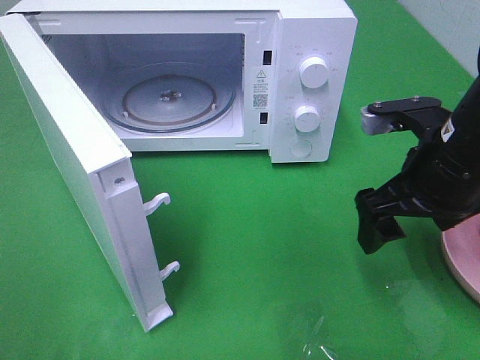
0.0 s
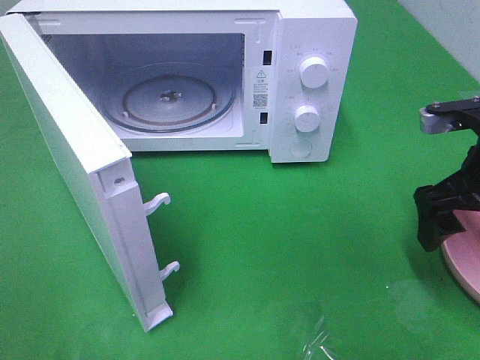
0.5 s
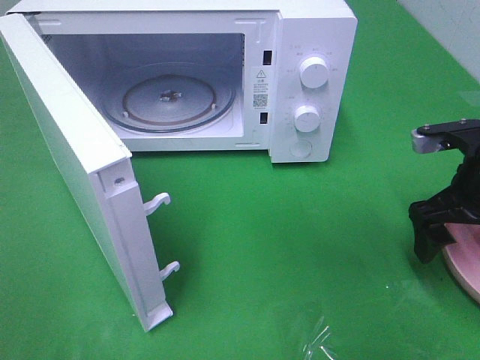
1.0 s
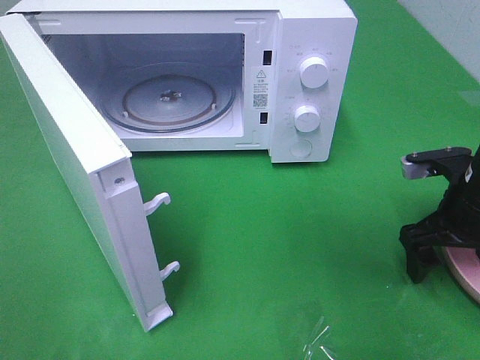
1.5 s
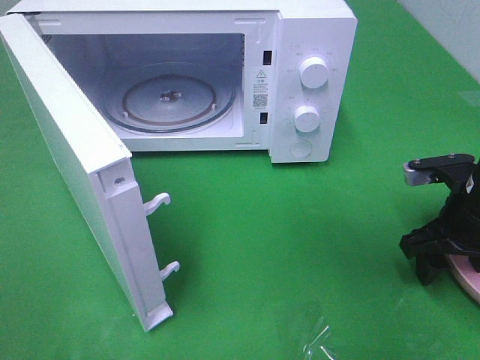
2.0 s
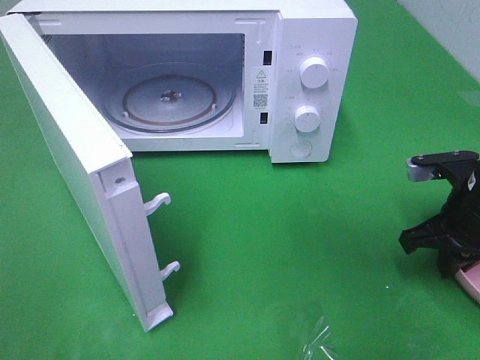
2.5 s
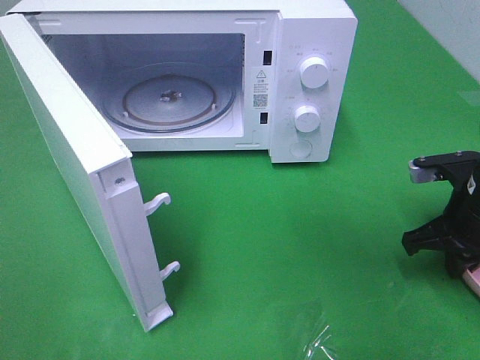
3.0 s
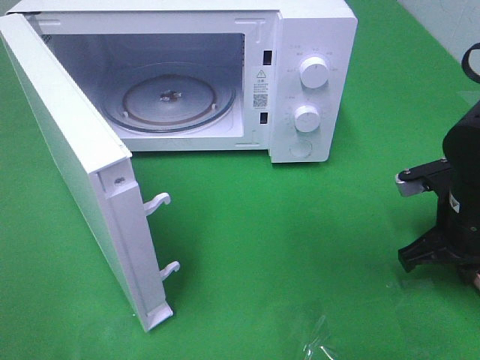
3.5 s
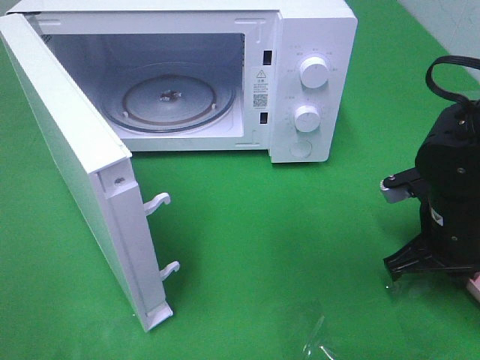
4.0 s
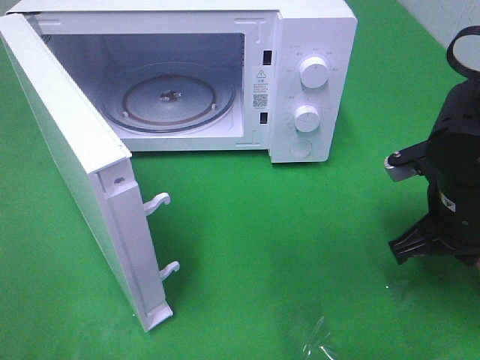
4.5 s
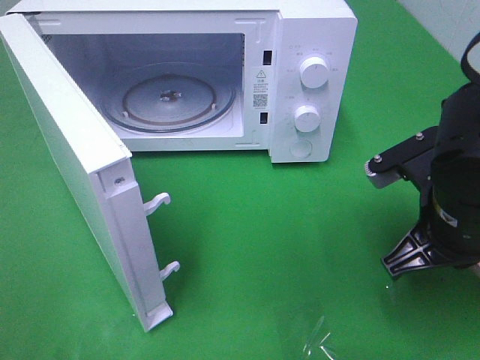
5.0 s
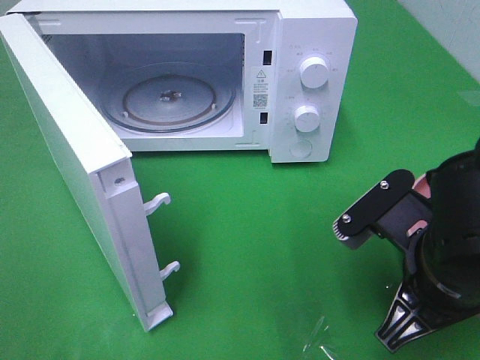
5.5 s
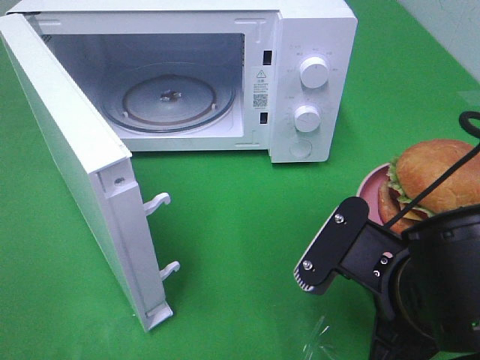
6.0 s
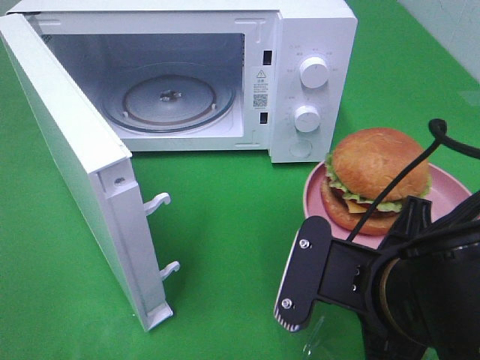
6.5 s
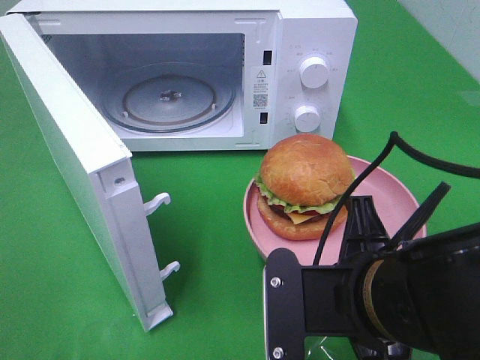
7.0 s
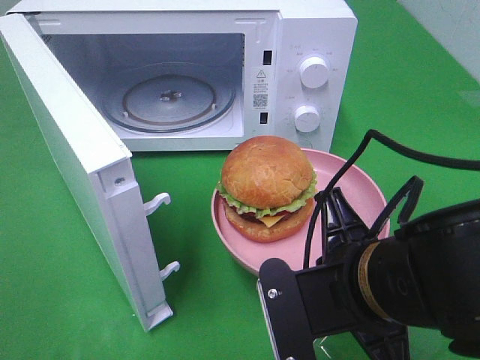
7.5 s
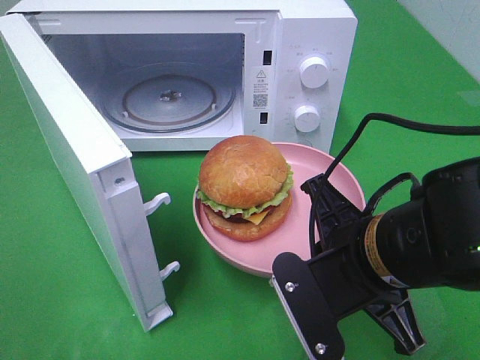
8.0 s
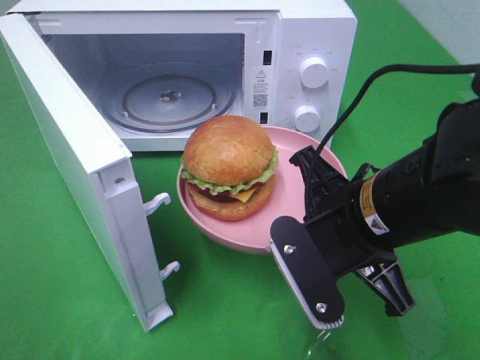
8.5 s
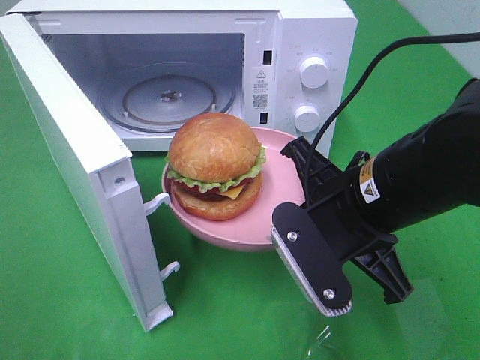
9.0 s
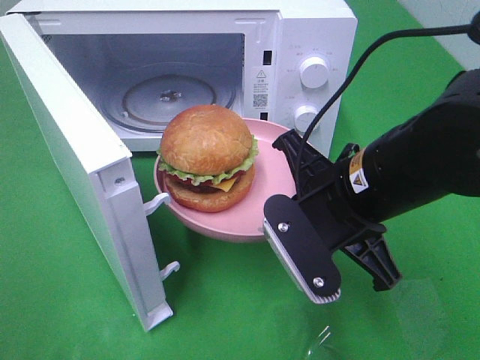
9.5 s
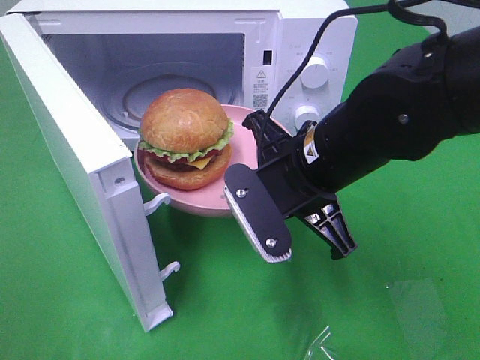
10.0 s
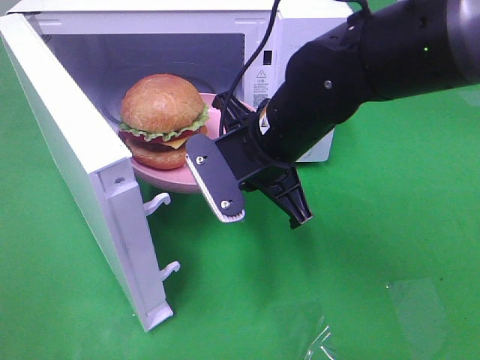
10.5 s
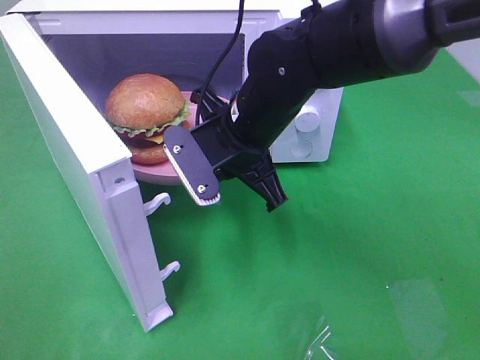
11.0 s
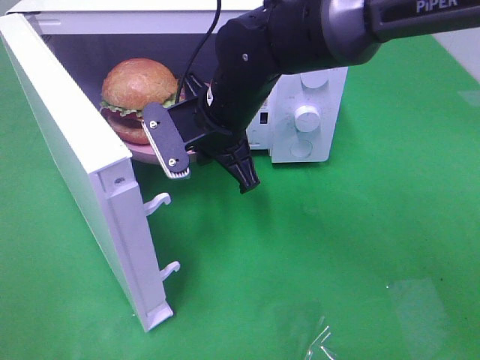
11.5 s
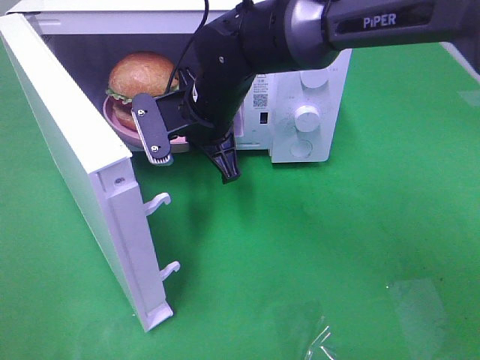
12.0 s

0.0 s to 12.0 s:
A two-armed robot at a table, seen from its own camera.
Task of the whole recording: Heat the burger.
Step, 0.0 to 2.5 s: Right hand: grab the plate with the hamburger.
0.0 to 2.0 s: The right gripper shifts about 10 cm downward and to the right.
2.0 to 4.0 s: The right gripper shifts by approximately 5 cm, and closes up.
4.0 to 6.0 s: The right gripper heads backward and to the left, covering roughly 15 cm.
8.0 to 10.0 s: The right gripper moves forward, about 10 cm.
10.0 to 12.0 s: The right gripper goes roughly 15 cm forward and to the left.

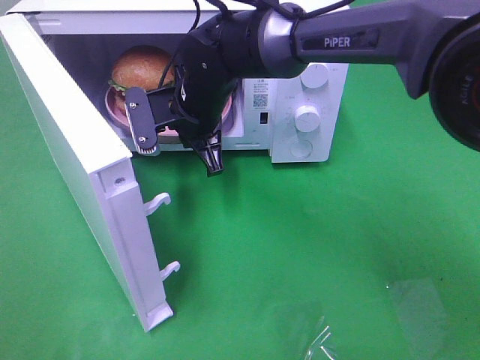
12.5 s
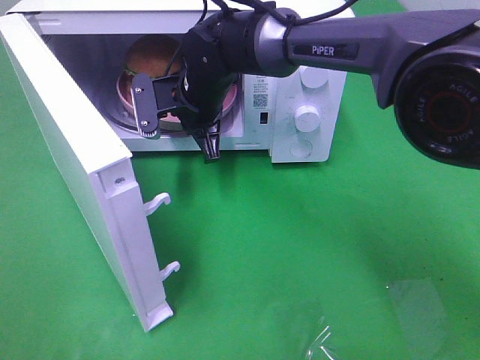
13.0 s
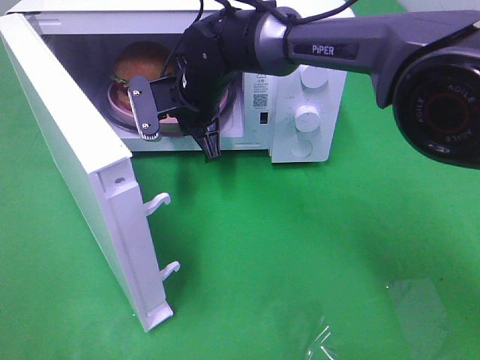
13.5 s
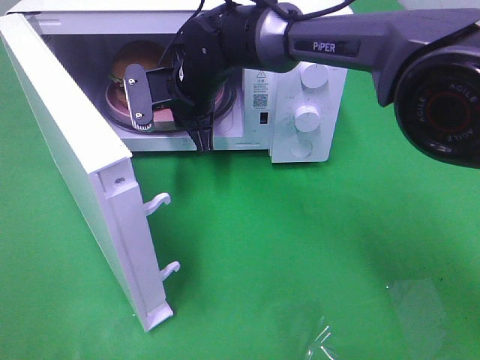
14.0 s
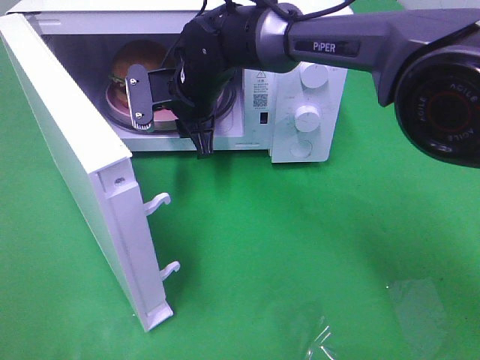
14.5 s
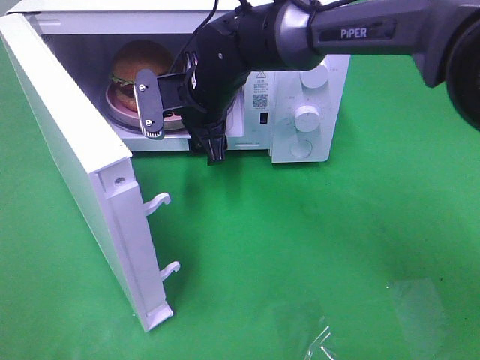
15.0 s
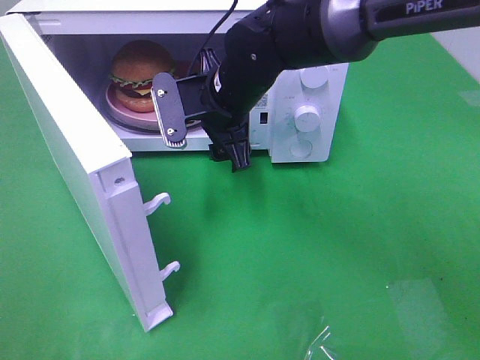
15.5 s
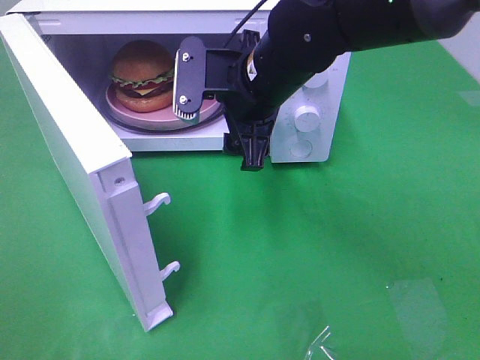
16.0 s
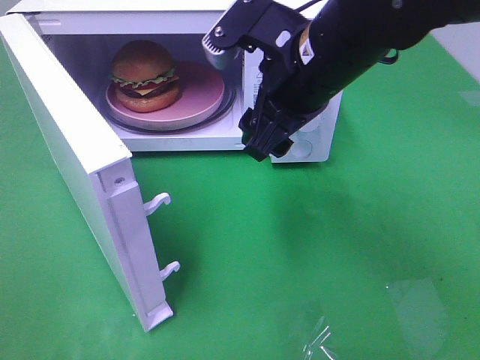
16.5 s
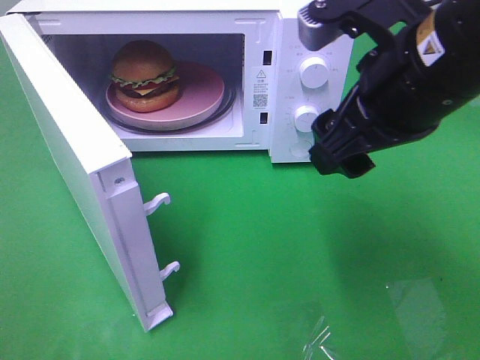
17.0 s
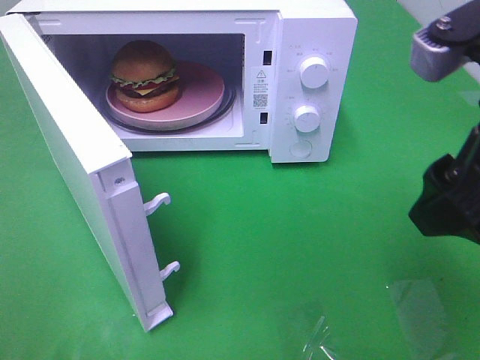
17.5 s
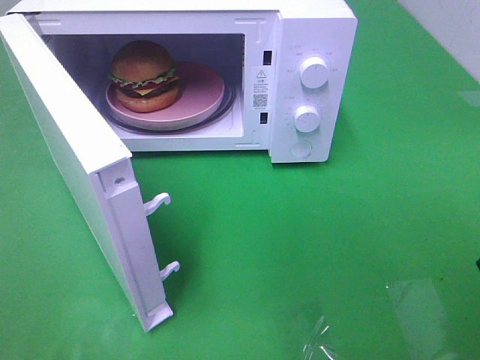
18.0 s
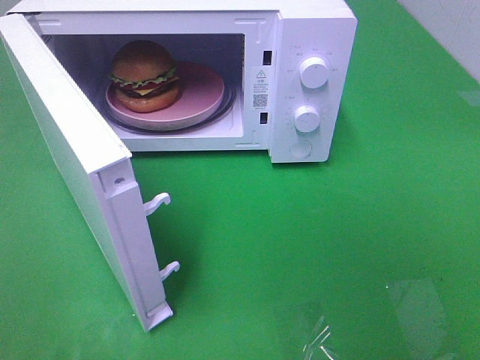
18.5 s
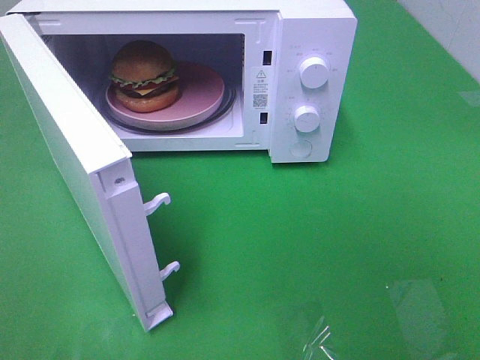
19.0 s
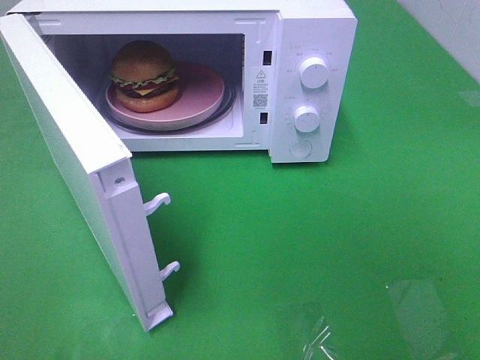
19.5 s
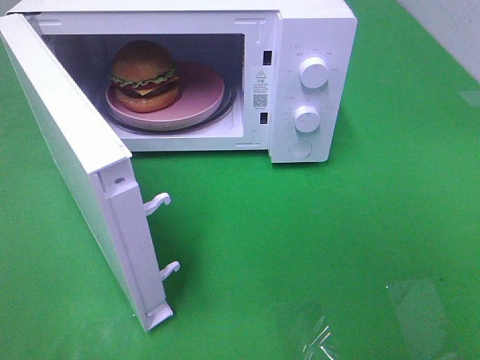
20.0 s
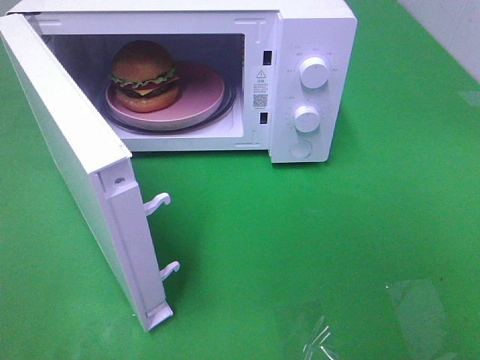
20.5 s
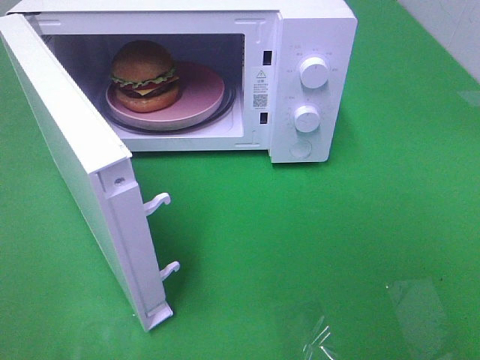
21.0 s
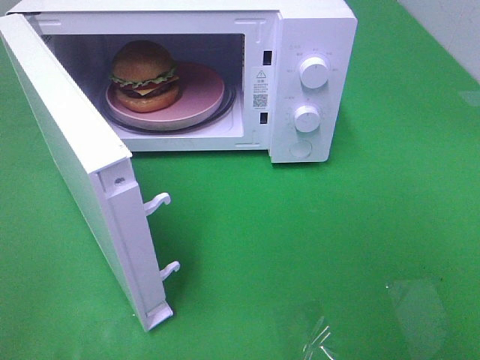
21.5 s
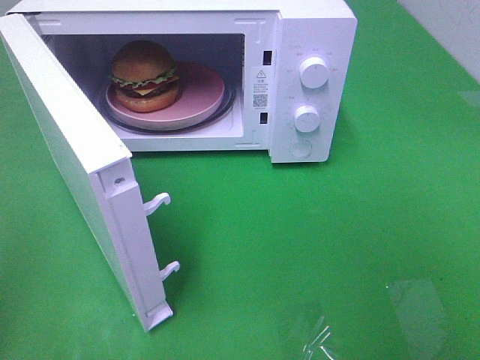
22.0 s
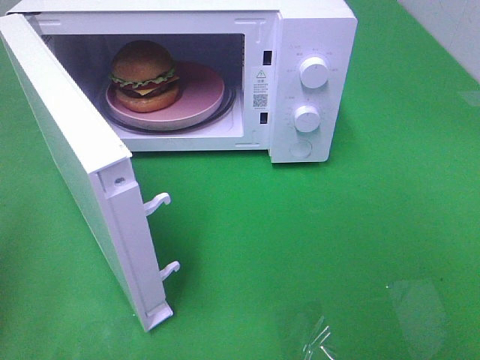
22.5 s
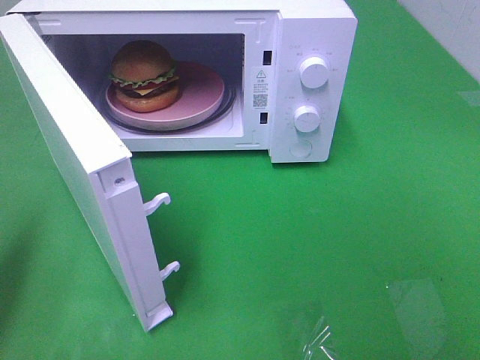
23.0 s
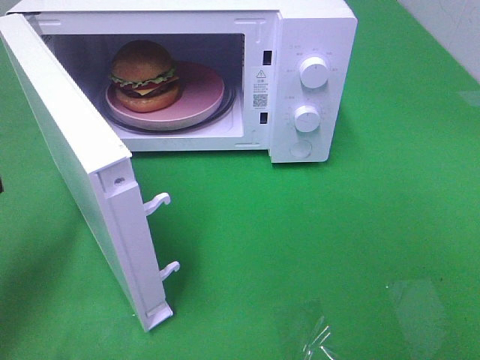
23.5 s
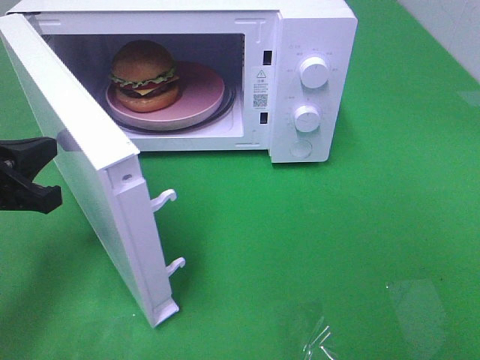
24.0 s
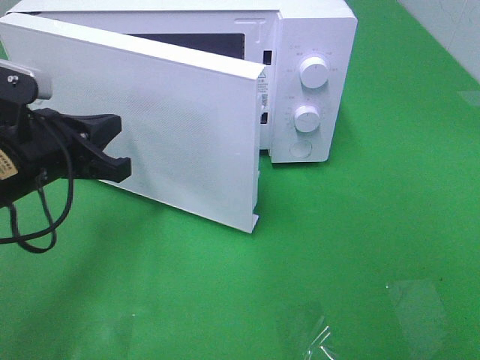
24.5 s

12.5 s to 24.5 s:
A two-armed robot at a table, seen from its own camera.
Task of the whole recording: Heat the burger.
Step, 12.5 to 15.0 s: Right hand: place the plate in the microwave.
12.5 to 14.5 s: The right gripper opens its fingers.
14.5 to 16.5 s: The right gripper shifts about 20 cm backward, to the right and upward, and opens its fingers.
16.5 to 18.5 s: The right gripper heads backward and to the right, covering approximately 30 cm.
22.5 to 24.5 s: The left gripper travels forward, to the right and downward by roughly 20 cm.

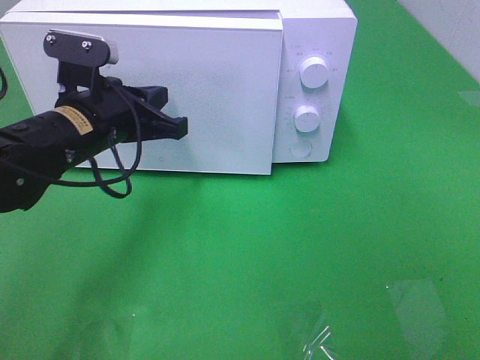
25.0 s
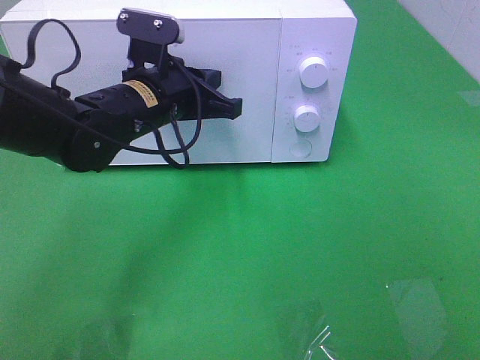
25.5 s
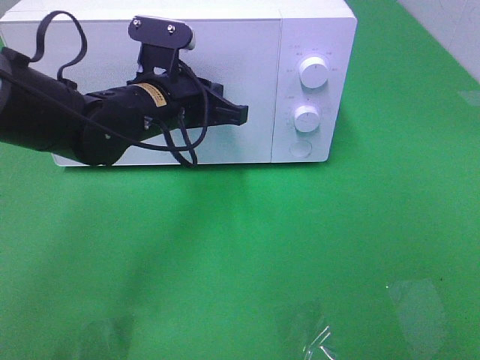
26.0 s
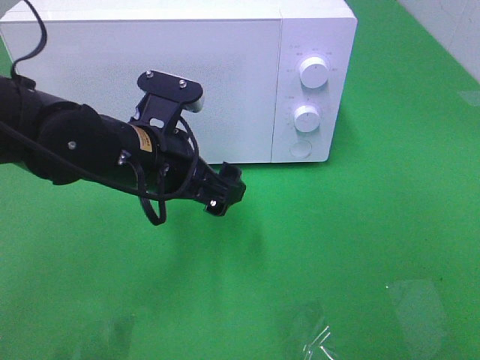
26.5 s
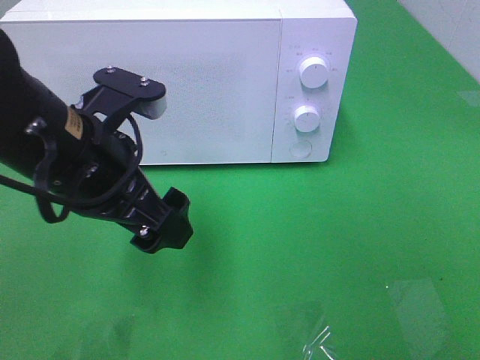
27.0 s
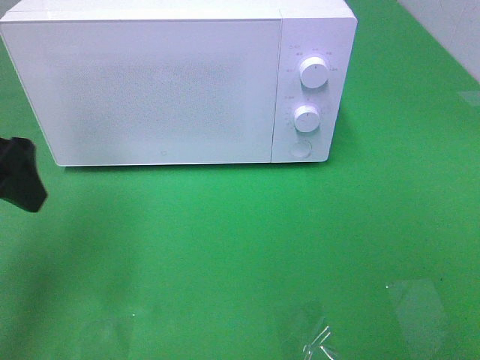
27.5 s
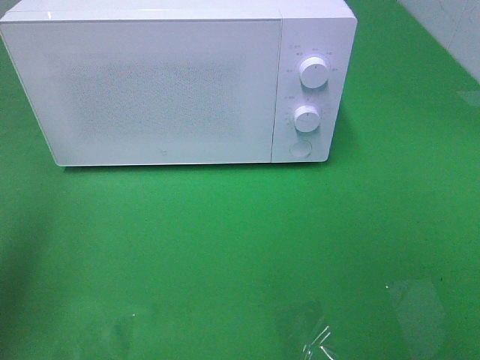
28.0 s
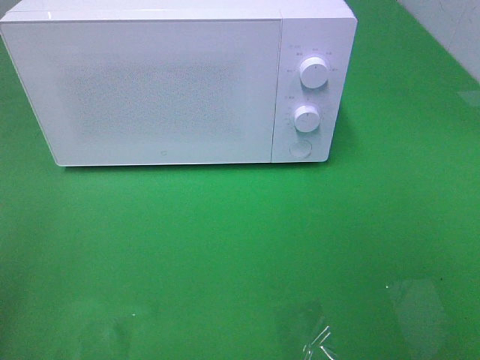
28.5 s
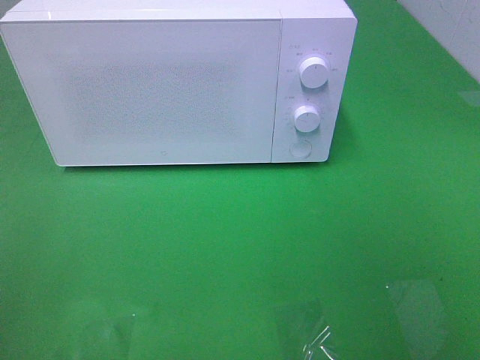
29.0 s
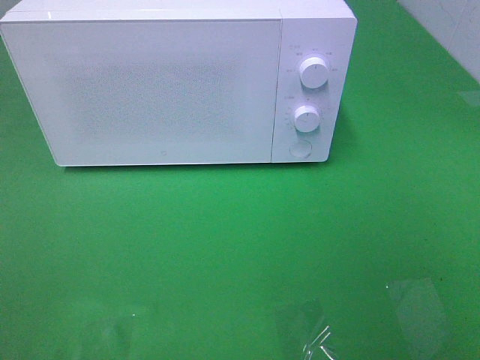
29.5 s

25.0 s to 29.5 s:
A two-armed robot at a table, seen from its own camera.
Task of the whole recording: Heat the burger.
25.0 to 27.0 s: The left gripper shifts roughly 10 cm backward and upward, and opens.
27.0 to 29.5 s: The left gripper moves backward and to the left, some 30 cm.
